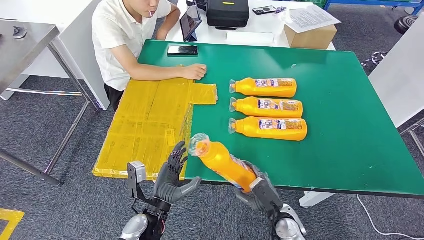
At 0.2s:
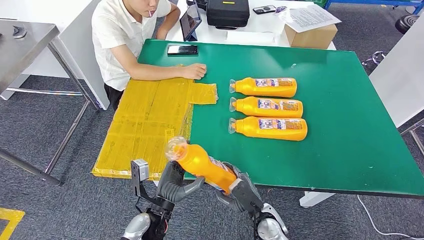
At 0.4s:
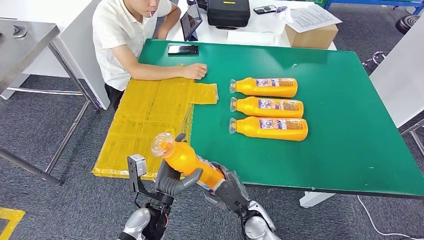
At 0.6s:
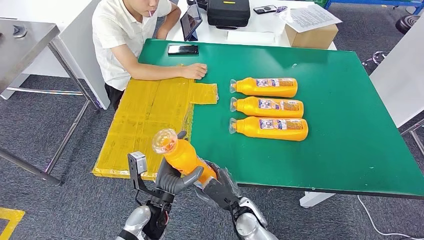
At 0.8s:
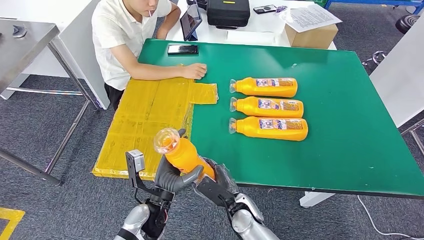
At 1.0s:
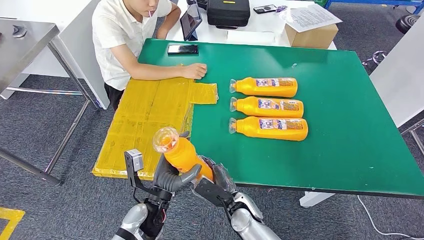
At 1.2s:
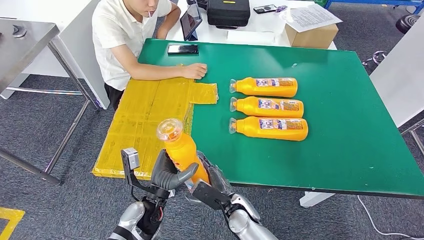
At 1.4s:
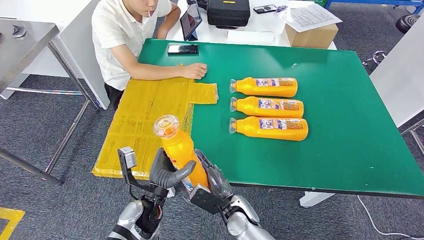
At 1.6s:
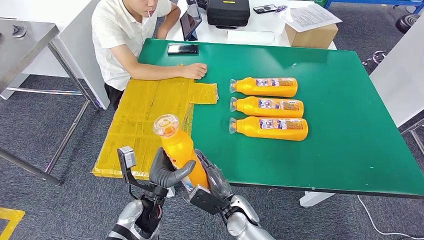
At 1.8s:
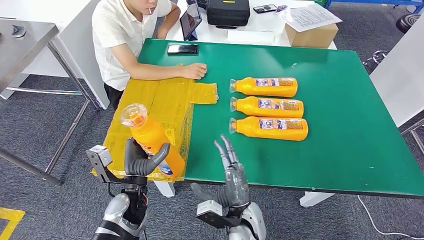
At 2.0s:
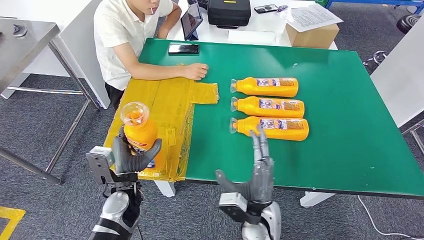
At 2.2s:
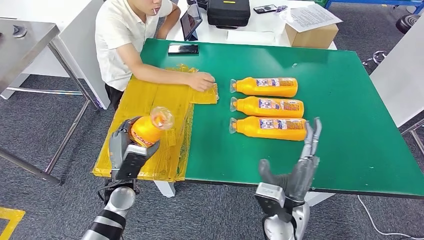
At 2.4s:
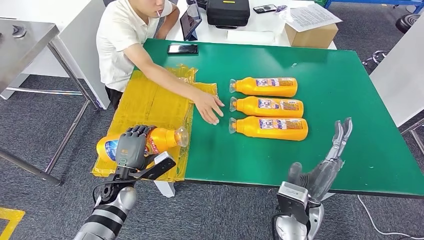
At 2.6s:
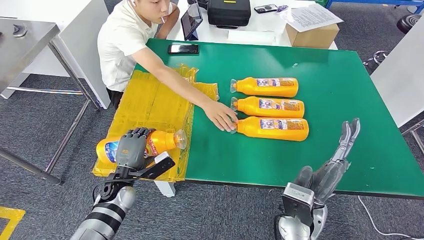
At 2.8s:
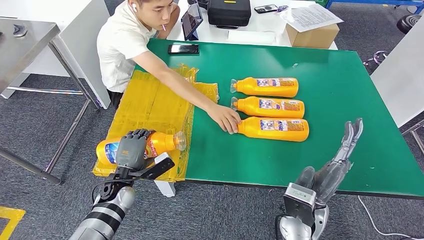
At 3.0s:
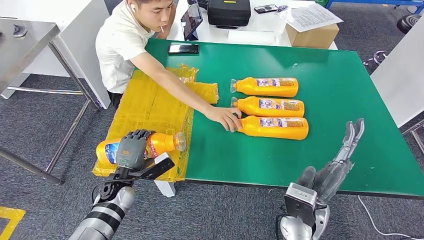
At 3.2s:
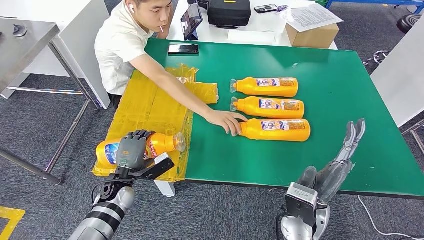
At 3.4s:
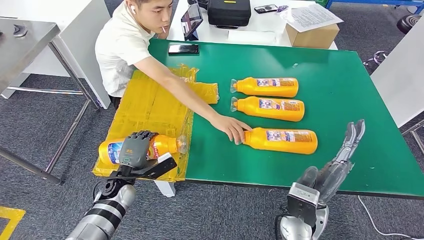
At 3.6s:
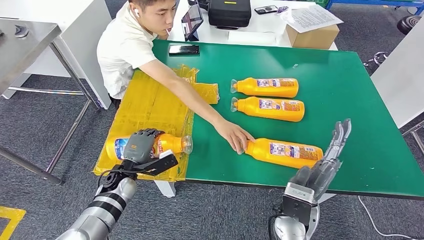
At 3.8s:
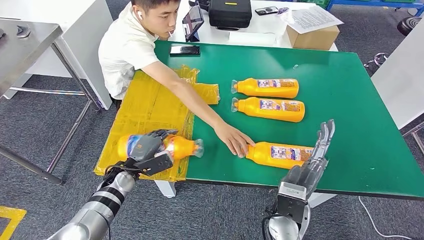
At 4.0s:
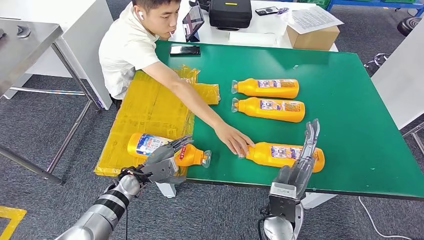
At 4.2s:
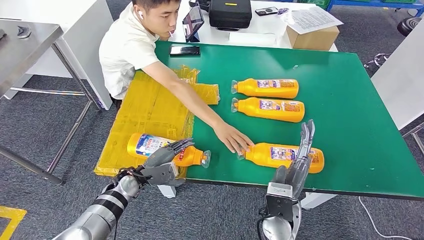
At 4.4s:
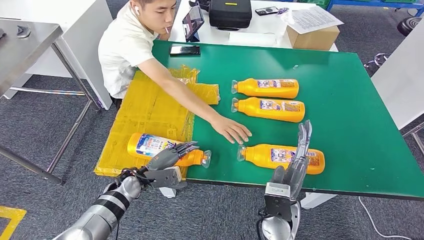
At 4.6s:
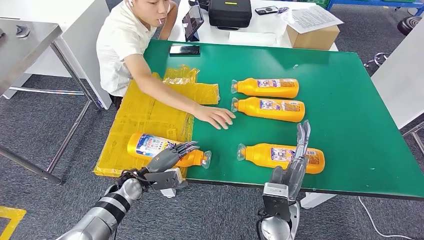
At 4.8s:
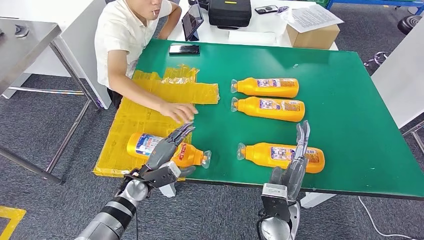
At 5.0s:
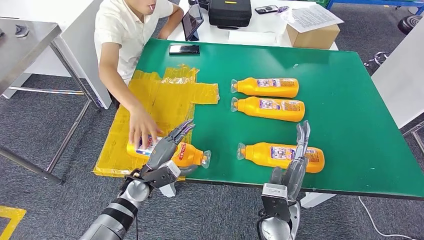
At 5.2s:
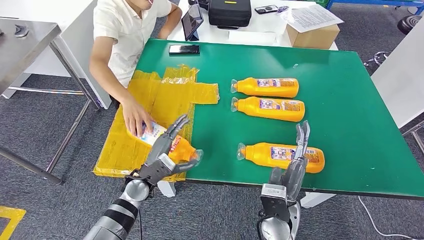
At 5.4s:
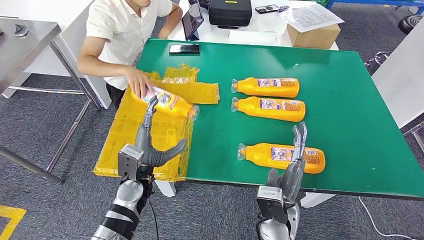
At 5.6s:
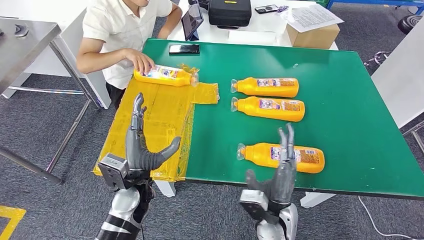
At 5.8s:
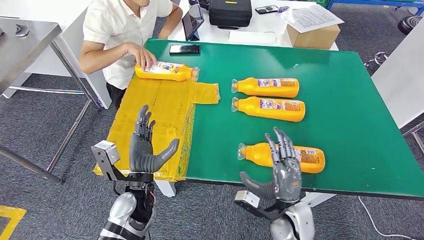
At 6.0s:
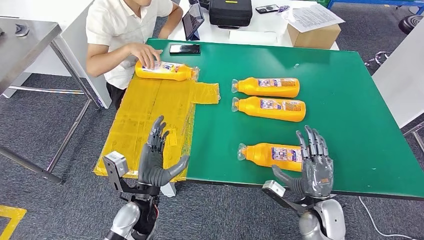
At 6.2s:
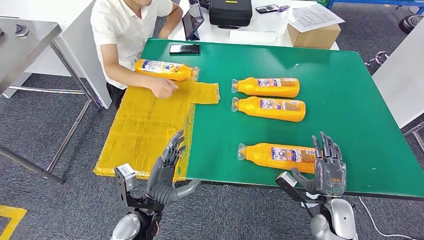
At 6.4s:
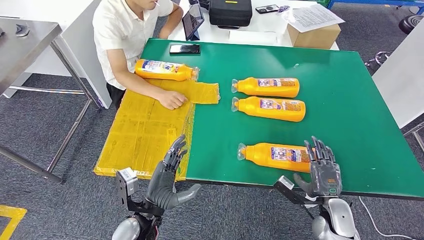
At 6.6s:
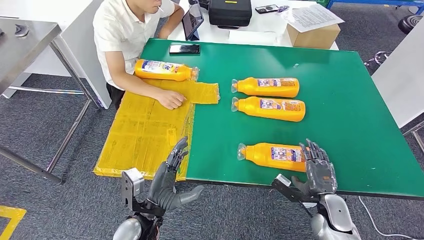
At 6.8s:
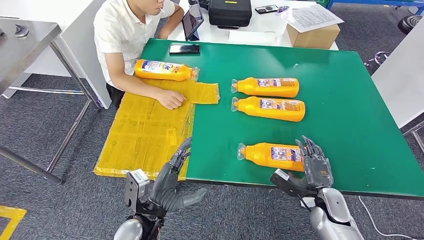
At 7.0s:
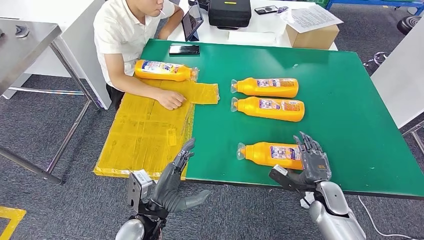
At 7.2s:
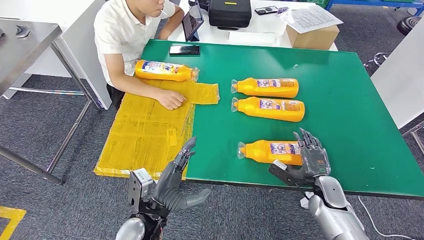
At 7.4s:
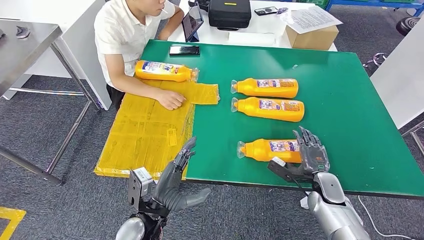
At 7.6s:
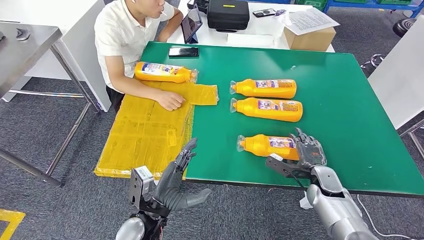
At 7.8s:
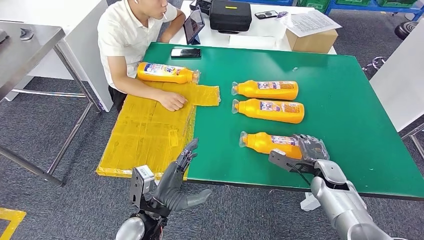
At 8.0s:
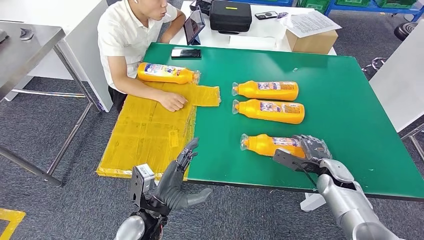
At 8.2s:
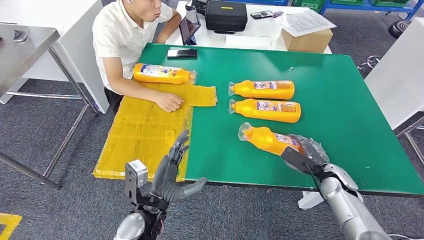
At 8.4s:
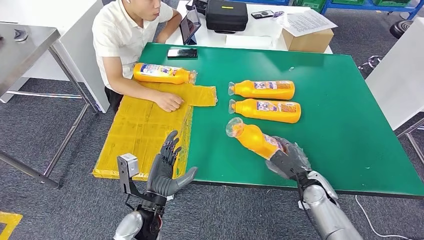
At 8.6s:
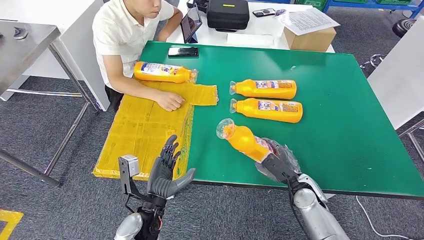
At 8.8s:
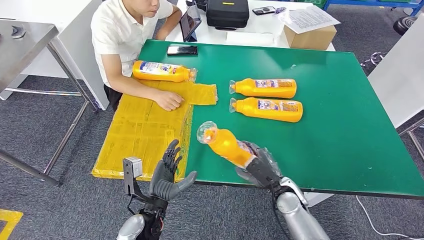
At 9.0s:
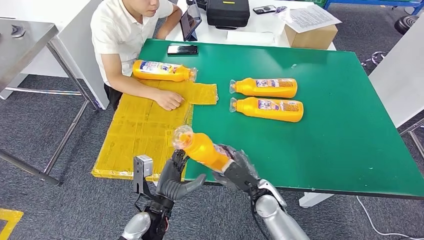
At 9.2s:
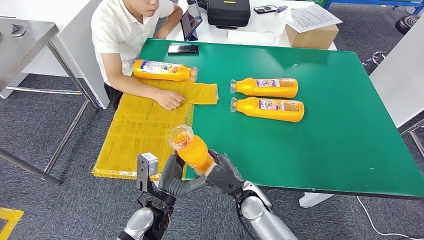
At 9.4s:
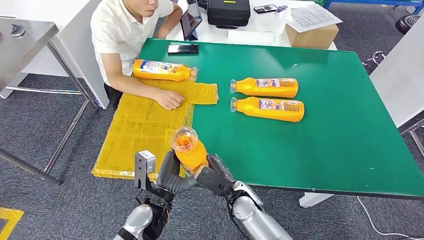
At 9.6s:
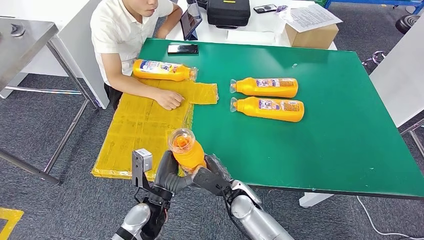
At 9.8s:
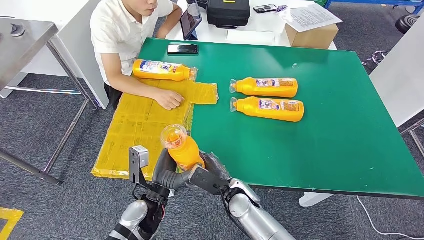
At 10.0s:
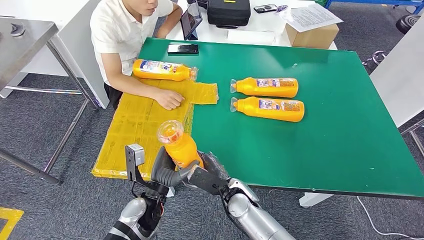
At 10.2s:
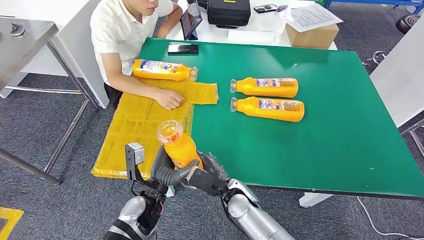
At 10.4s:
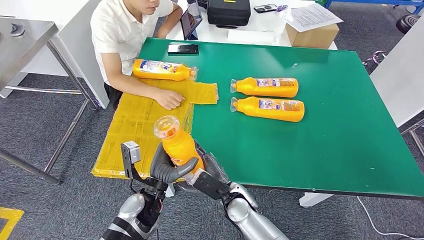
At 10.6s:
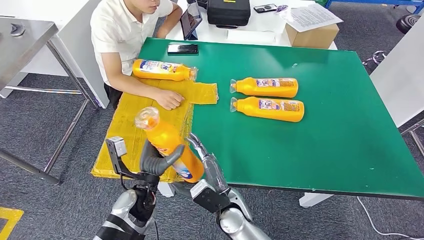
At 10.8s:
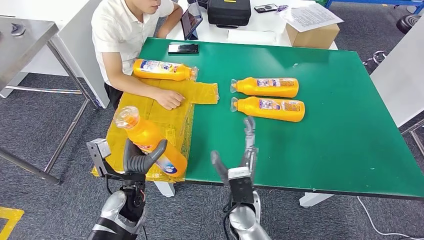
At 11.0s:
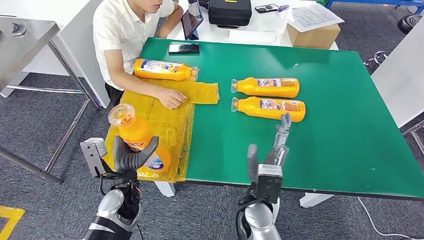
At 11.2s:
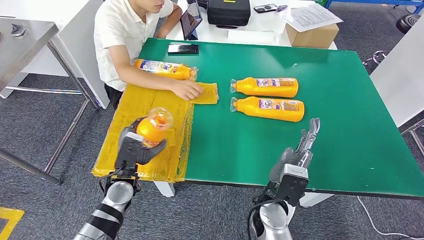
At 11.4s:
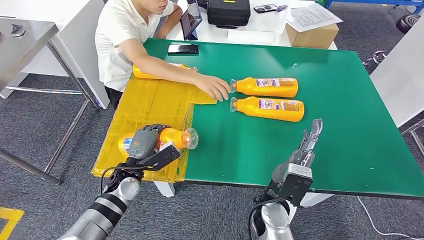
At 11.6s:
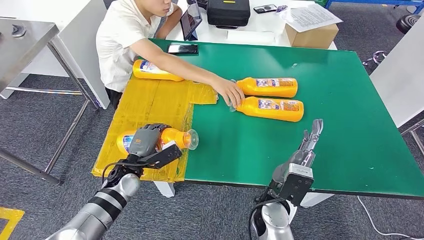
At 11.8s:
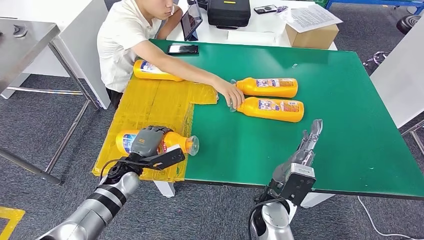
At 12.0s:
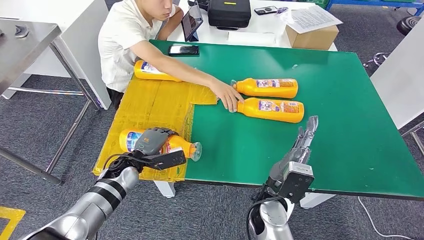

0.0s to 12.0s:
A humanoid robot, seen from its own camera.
Step, 1.8s to 4.2s: Flip the bottle to face forward.
Step, 4.4s to 10.6s: Pick up the bottle from the table.
0.0s to 1.6s: The right hand heads to the left, covering approximately 15 cm.
9.0s to 10.4s: The right hand heads to the left, covering some 10 cm.

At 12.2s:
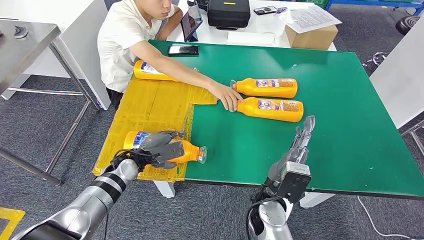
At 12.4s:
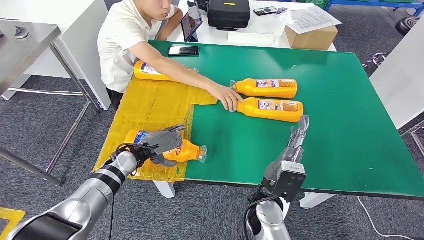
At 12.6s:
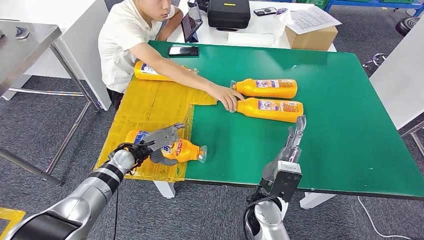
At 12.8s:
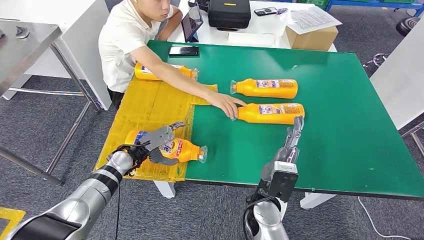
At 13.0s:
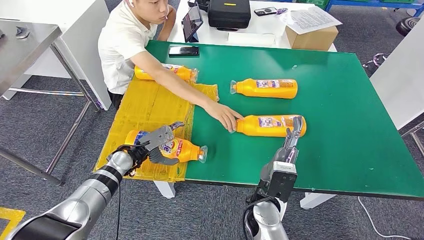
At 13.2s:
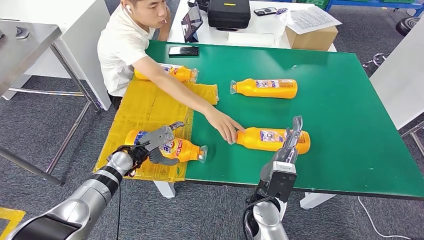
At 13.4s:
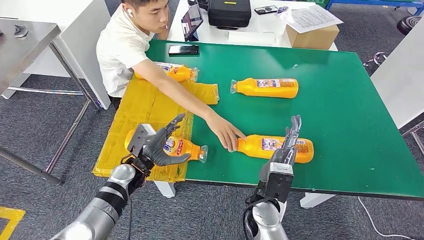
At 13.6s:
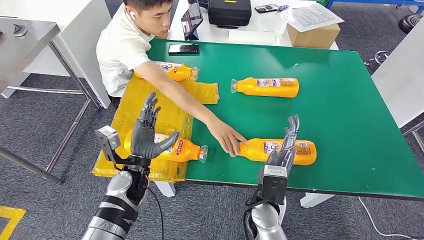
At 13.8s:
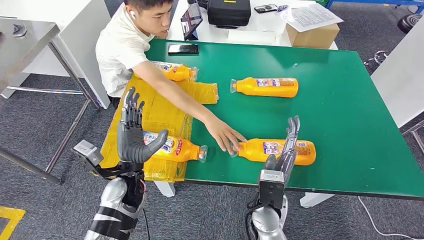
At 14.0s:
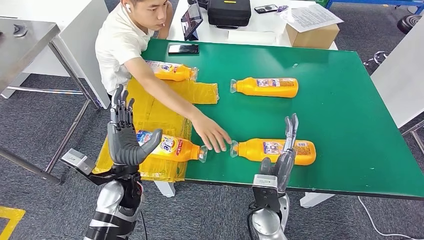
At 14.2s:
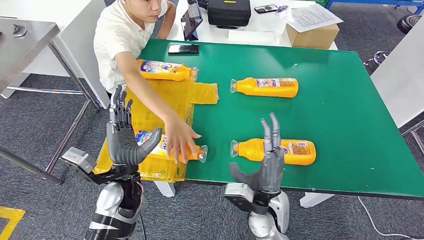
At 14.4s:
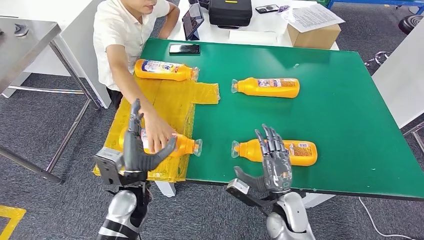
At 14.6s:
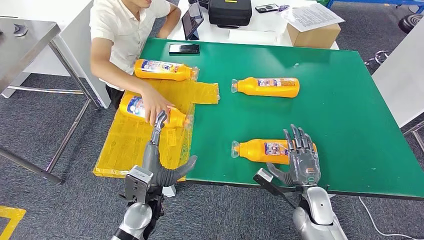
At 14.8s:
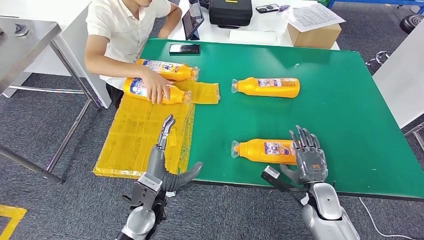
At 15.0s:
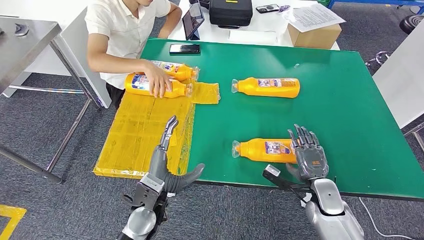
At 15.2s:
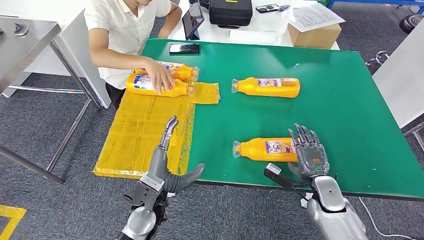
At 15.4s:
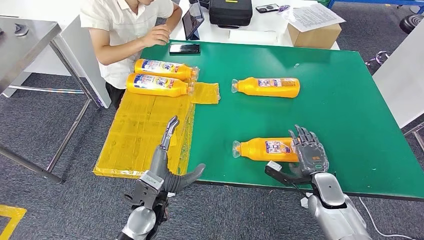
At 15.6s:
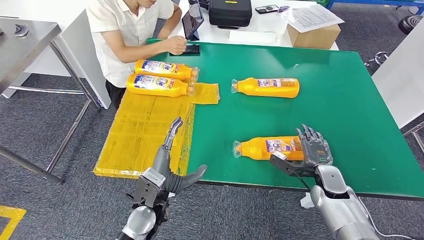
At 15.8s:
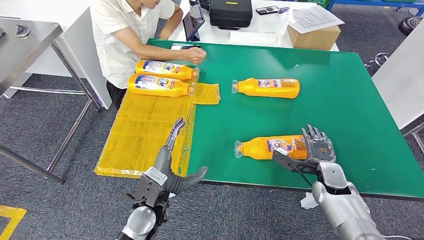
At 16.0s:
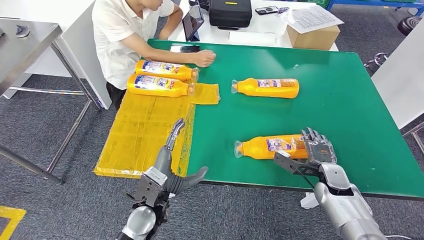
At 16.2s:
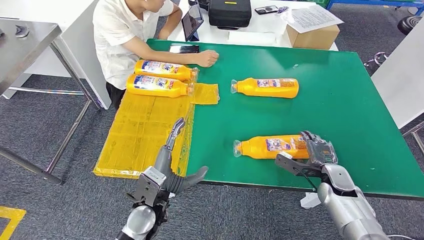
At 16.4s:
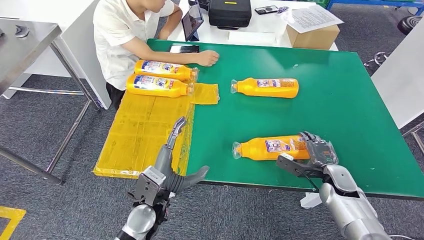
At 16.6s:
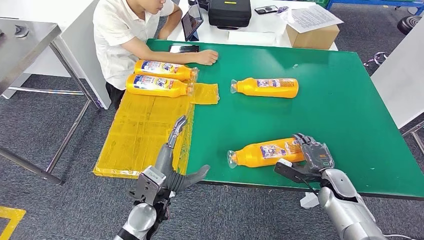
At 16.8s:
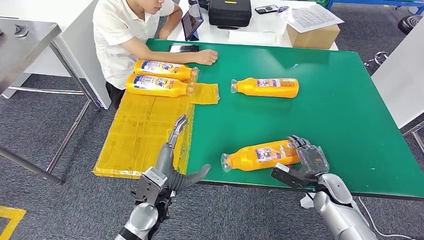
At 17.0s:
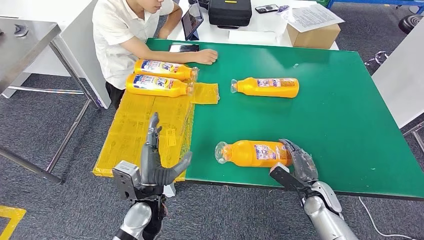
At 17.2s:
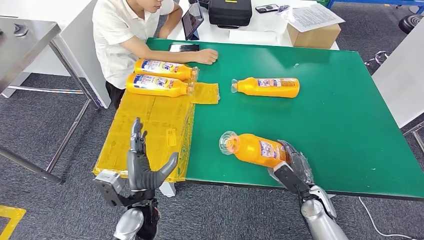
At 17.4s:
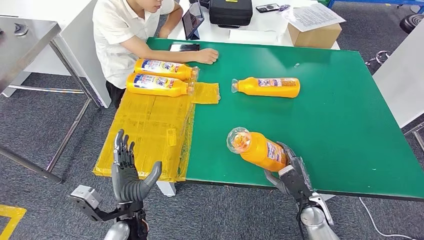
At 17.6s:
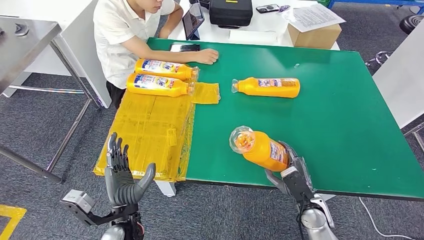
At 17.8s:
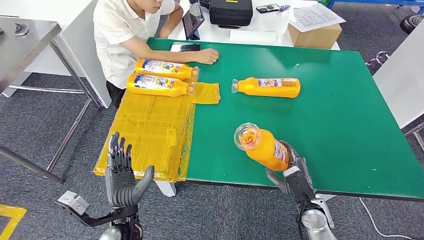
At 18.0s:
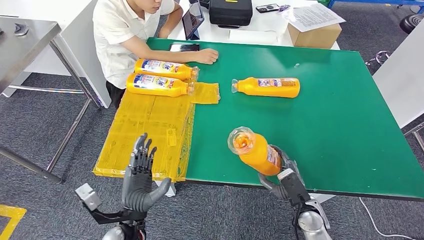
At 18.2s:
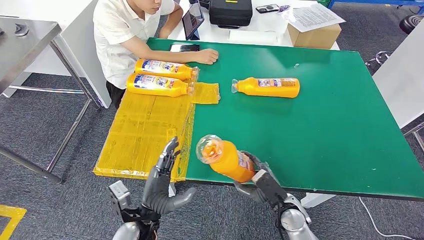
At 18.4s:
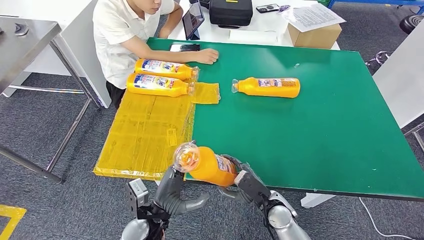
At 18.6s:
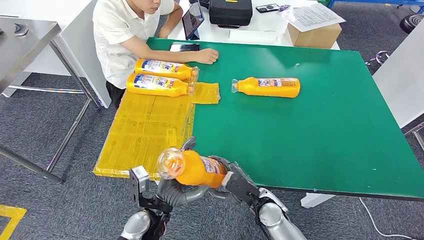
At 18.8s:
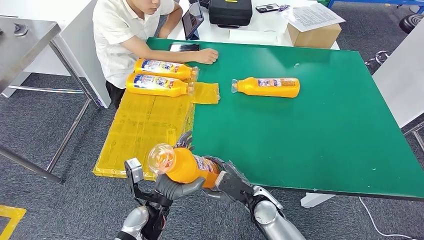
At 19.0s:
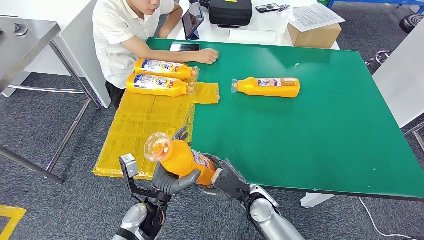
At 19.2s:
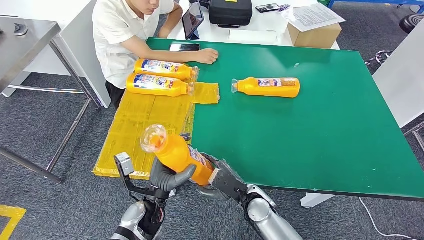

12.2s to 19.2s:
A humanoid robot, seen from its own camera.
15.0s to 16.4s: The right hand moves about 5 cm.
16.4s to 17.8s: The right hand is displaced to the left and backward by about 10 cm; the left hand goes about 5 cm to the left.
17.8s to 19.2s: The right hand is displaced to the left by some 15 cm. Meanwhile the left hand is displaced forward by roughly 5 cm.
